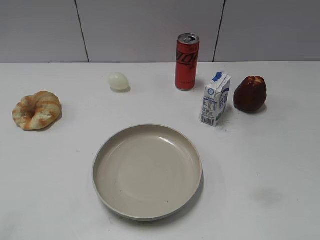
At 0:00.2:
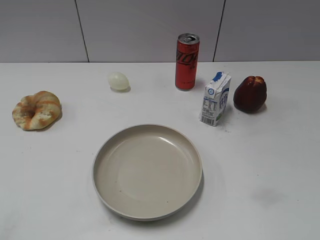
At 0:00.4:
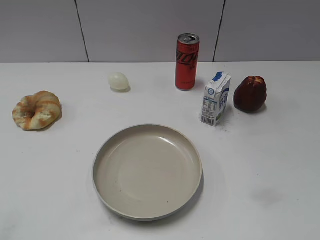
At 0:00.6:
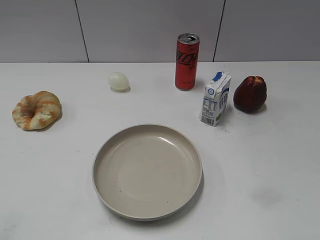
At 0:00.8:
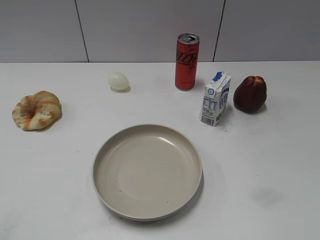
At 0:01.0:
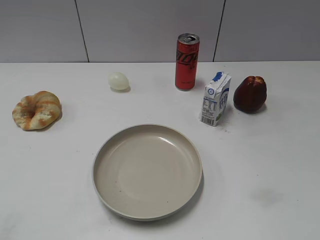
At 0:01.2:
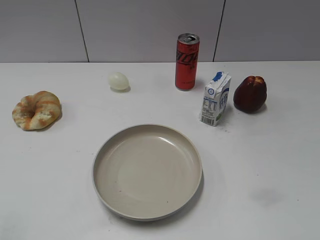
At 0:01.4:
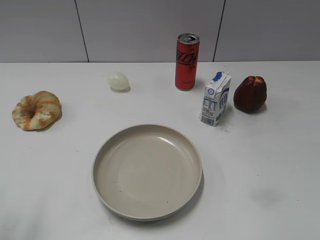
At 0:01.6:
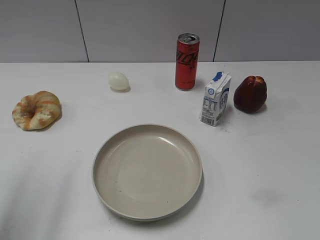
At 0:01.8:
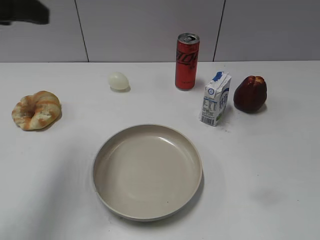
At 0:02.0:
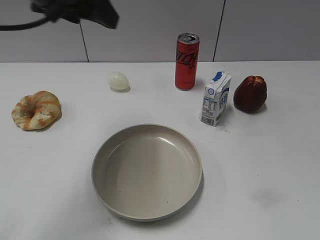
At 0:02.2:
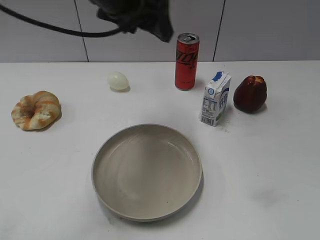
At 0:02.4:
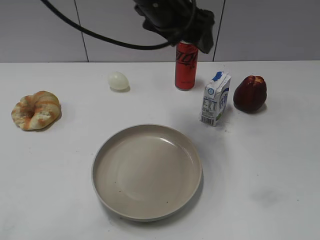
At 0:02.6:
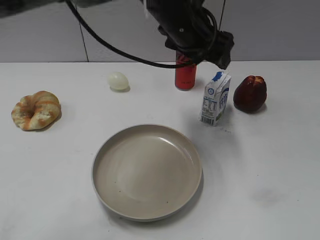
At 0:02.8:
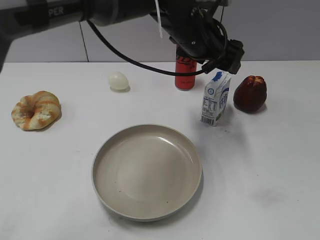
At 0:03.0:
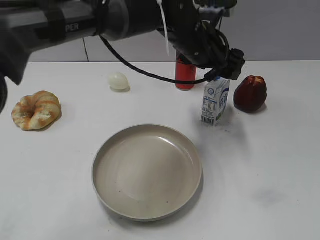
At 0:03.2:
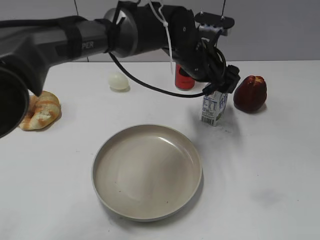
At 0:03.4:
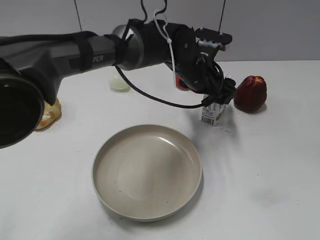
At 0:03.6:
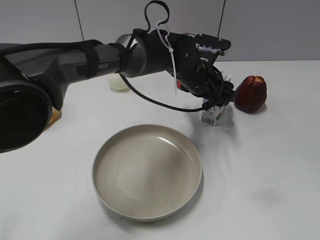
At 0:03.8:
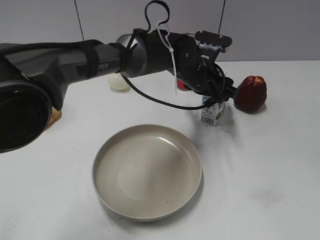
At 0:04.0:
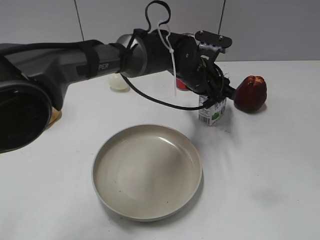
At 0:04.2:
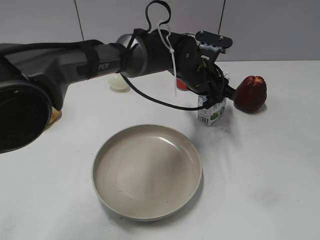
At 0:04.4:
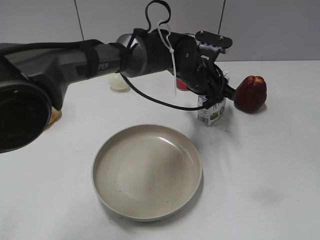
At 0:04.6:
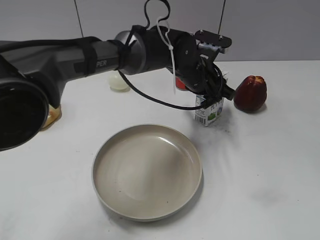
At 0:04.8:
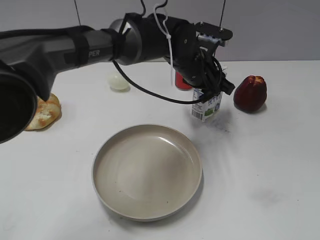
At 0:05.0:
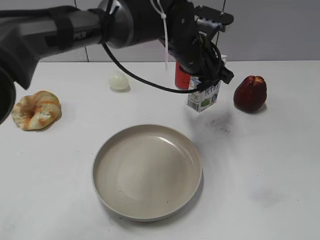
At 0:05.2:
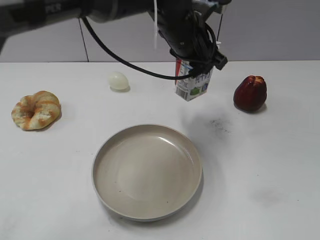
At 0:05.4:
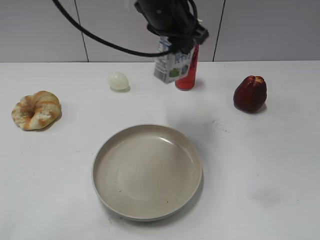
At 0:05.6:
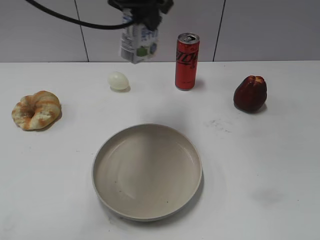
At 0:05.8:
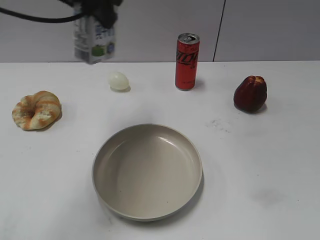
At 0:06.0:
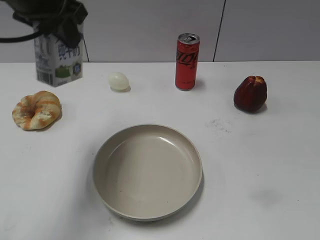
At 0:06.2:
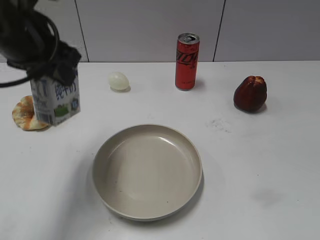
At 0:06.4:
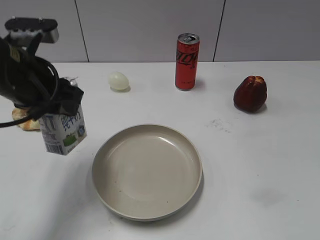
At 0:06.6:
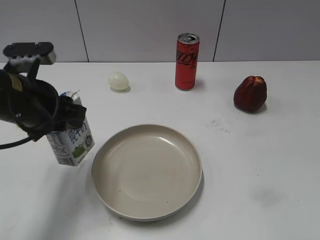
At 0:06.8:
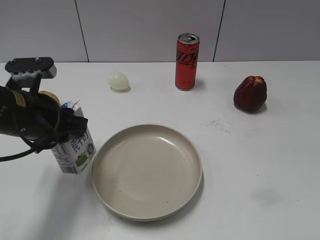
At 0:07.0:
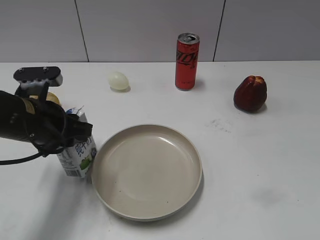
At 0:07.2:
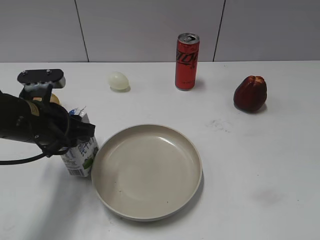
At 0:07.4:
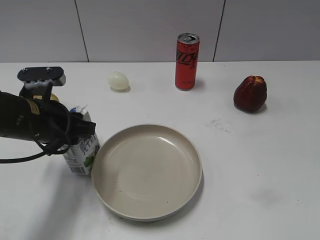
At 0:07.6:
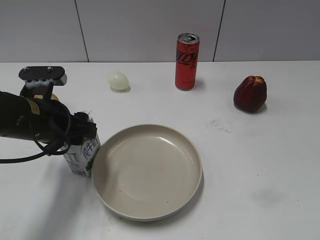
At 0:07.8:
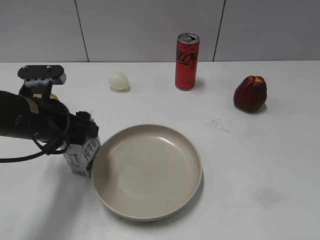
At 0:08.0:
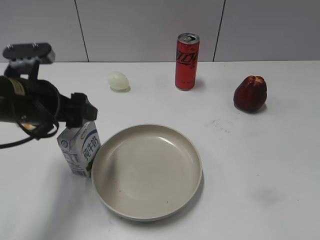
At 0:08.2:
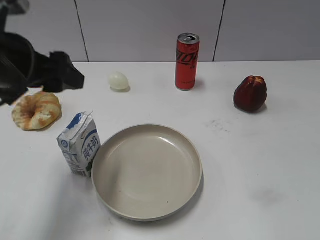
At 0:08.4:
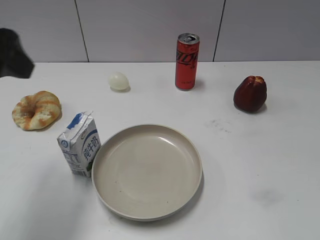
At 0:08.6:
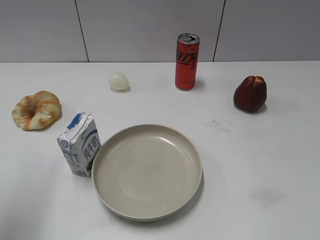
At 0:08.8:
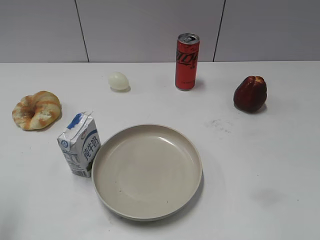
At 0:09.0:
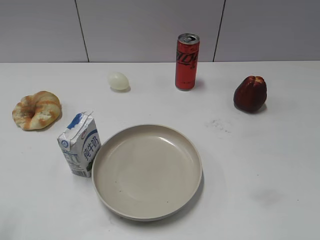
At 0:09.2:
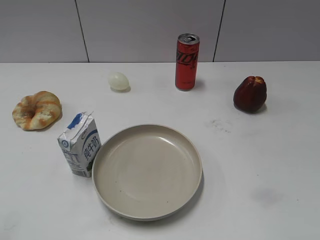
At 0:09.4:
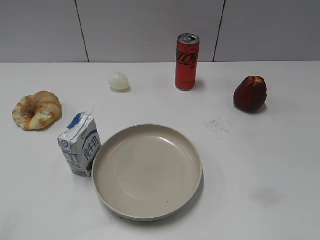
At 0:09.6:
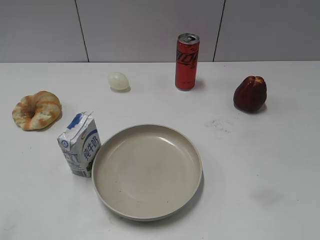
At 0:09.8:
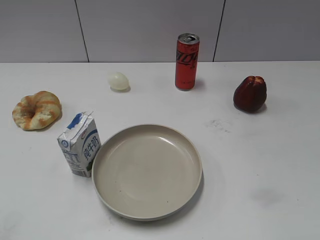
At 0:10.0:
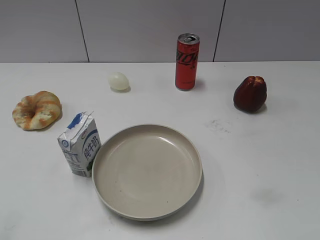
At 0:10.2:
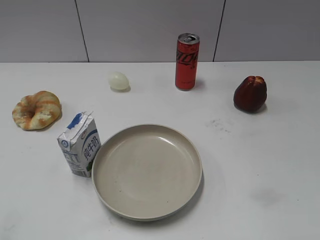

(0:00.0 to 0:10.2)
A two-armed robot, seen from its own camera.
Step, 0:01.0 - 0:04.2: Grasp the milk with left gripper.
Step, 0:04.4 - 0:07.8: Place the milk on the table with left gripper.
0:01.4 - 0:03.0: The left gripper heads to the right and forward, covering roughly 50 cm.
0:03.0 - 0:04.4: The left gripper shifts about 10 cm downward, and closes up.
0:04.4 - 0:05.8: The left gripper is displaced upward and to the left by approximately 30 cm.
0:05.8 - 0:07.2: The left gripper moves downward, backward and to the left, approximately 25 cm.
0:07.2 - 0:08.8: The left gripper goes about 25 cm upward, to the left and backward, and opens.
